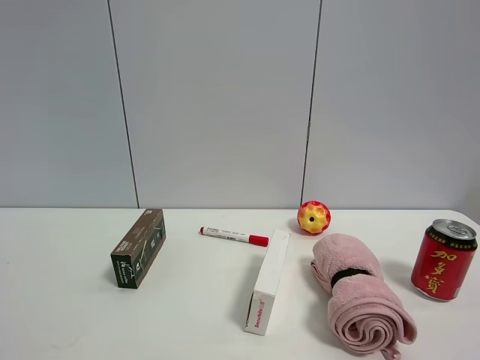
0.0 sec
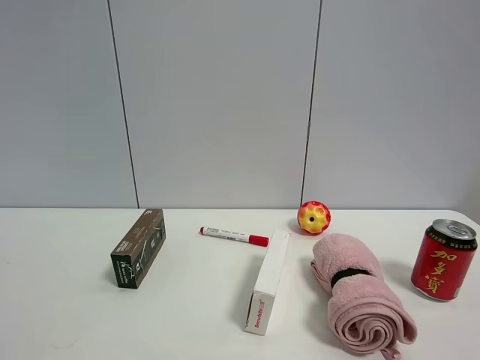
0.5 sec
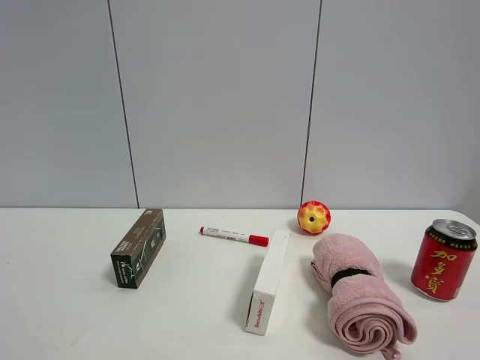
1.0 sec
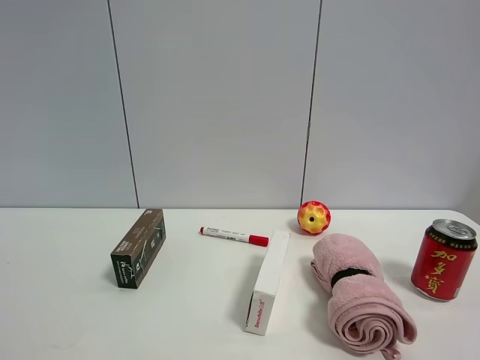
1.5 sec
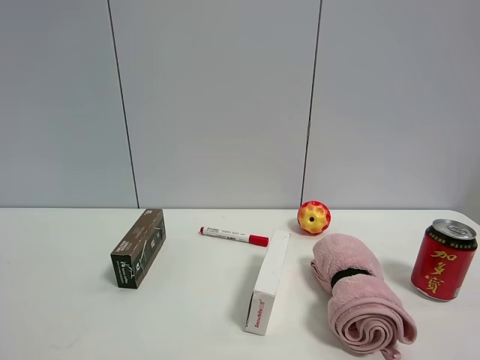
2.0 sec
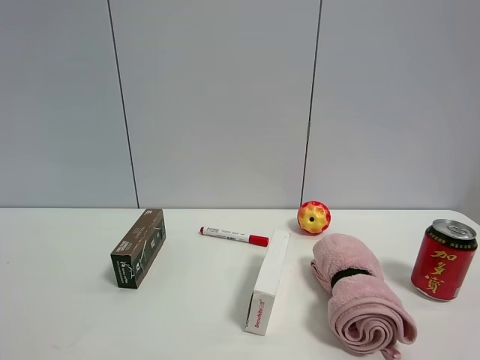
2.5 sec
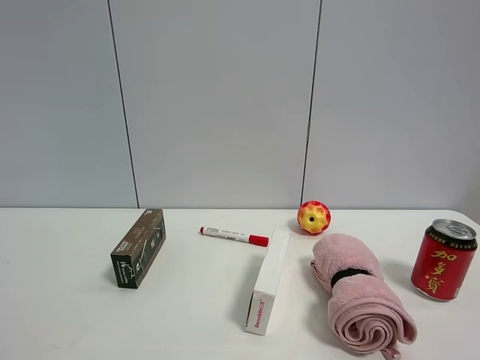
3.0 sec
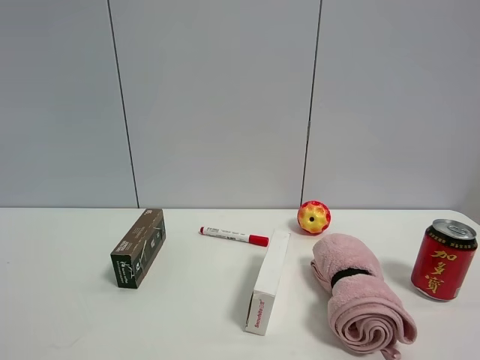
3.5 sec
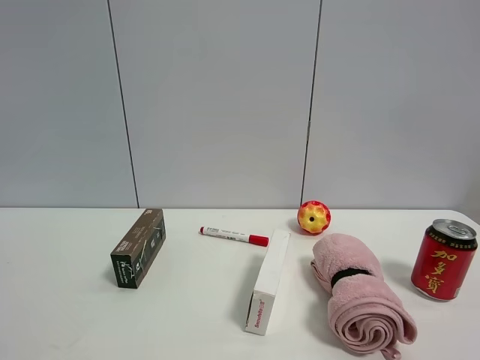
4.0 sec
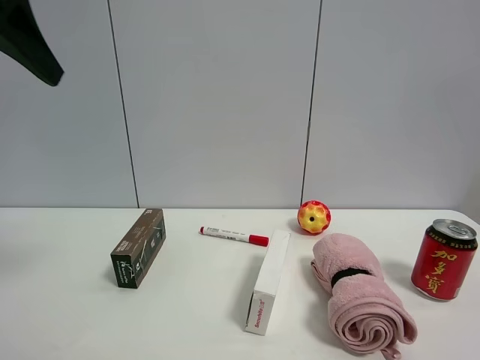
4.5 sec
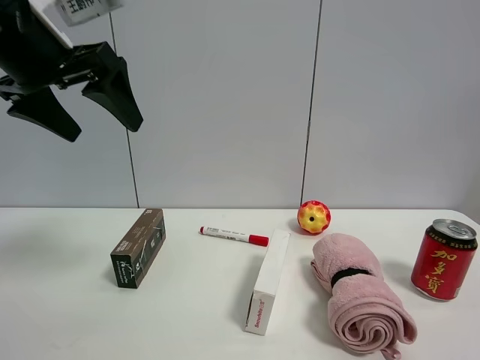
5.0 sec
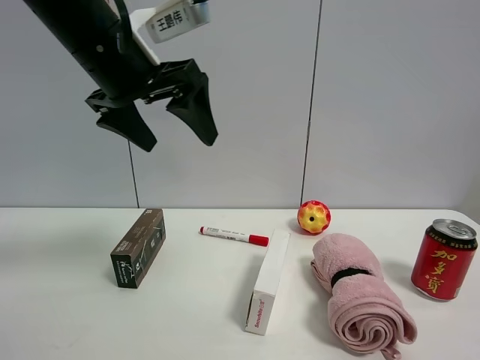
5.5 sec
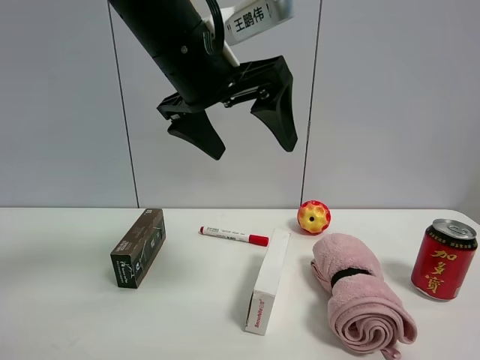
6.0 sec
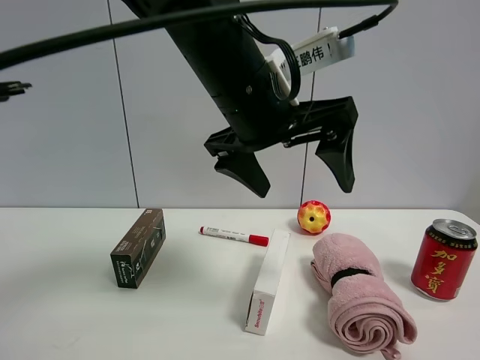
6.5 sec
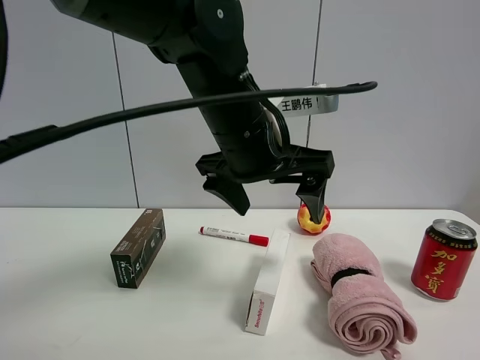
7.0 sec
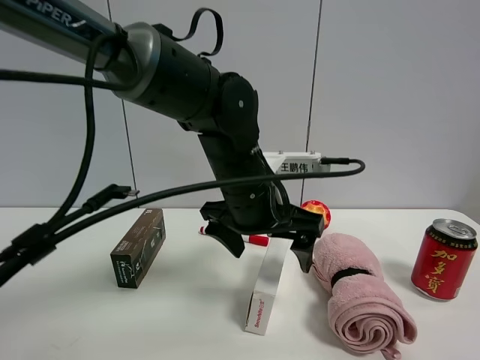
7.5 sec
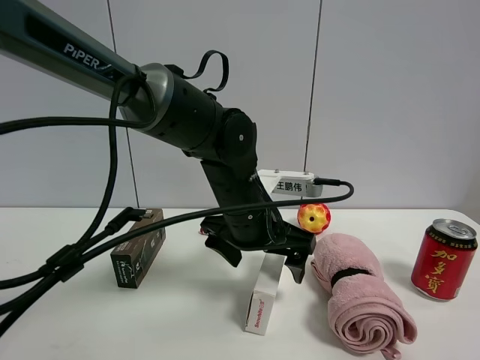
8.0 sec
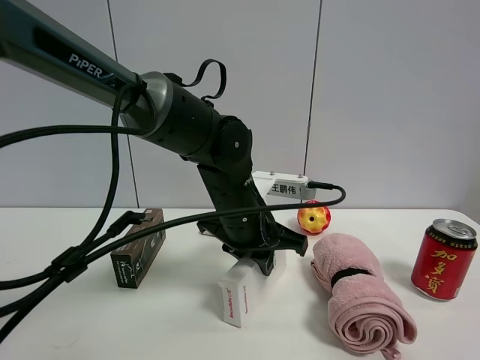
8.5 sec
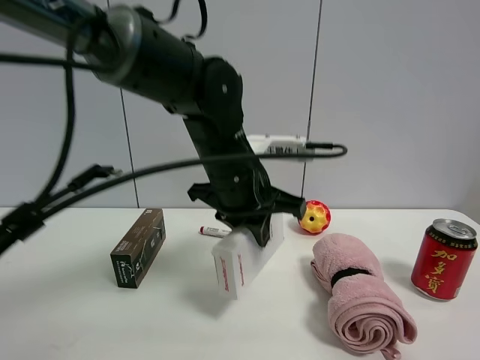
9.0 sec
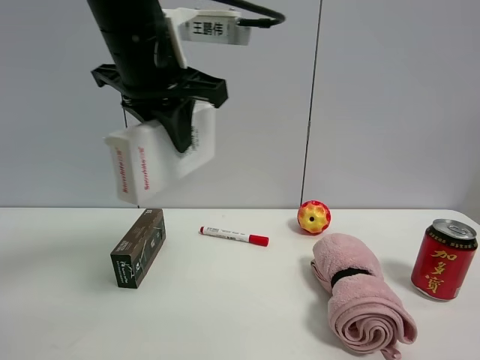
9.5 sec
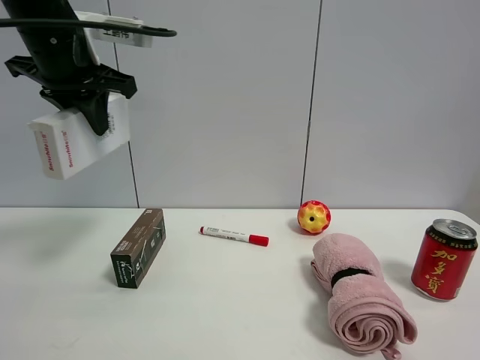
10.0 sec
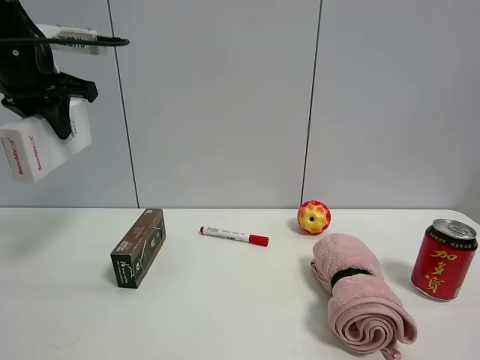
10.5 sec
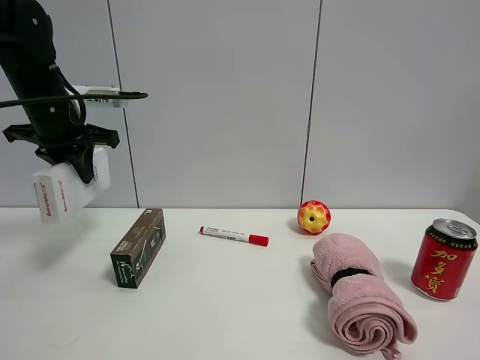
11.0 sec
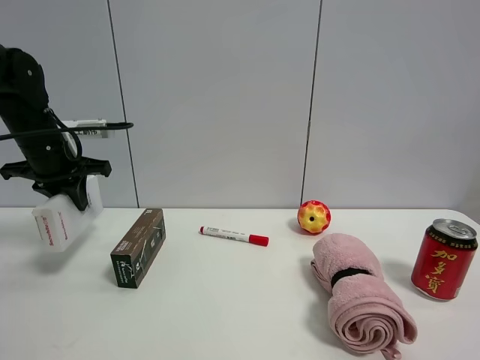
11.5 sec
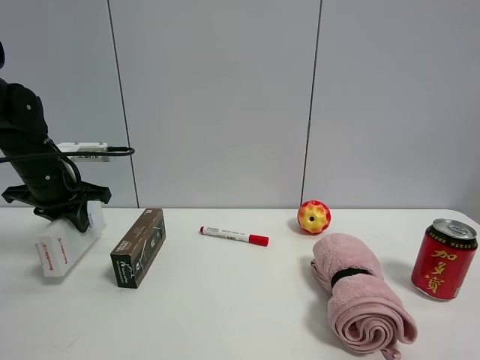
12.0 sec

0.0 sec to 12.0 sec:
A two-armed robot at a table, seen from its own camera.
Task of the whole recording: the gripper move the object.
Step, 0.0 sec to 8.5 sec: Grasp the USB box with the left gripper.
0.0 sec to 2.0 sec: Both grippers stay put.
4.0 sec to 6.0 sec: The left gripper moves to the right and forward, approximately 30 cm.
6.0 sec to 8.0 sec: The left gripper goes approximately 20 cm downward.
8.0 sec to 10.0 sec: The left gripper heads to the left and upward, covering approximately 30 cm, and closes up.
10.0 sec to 12.0 sec: The left gripper is displaced downward and to the left by approximately 20 cm.

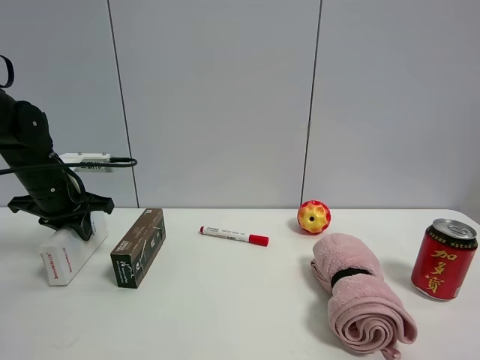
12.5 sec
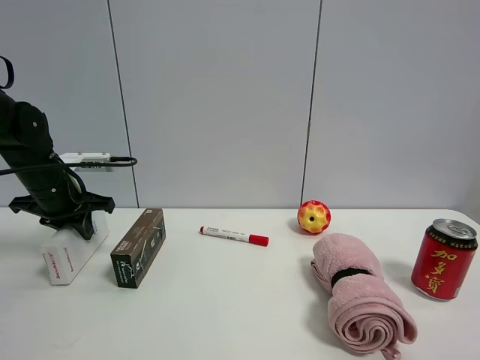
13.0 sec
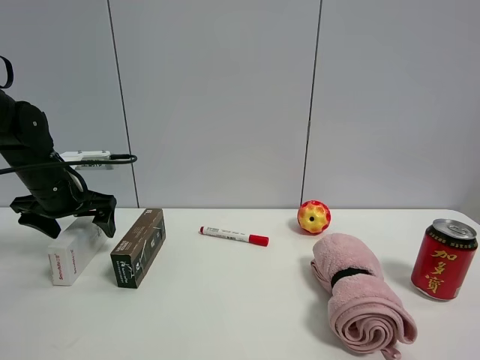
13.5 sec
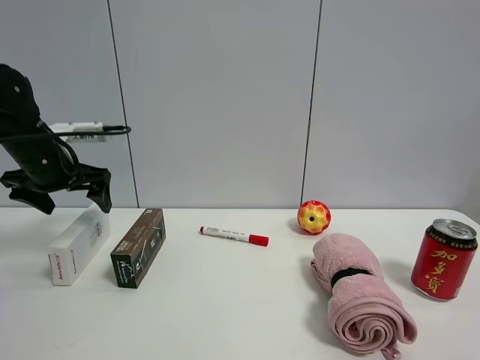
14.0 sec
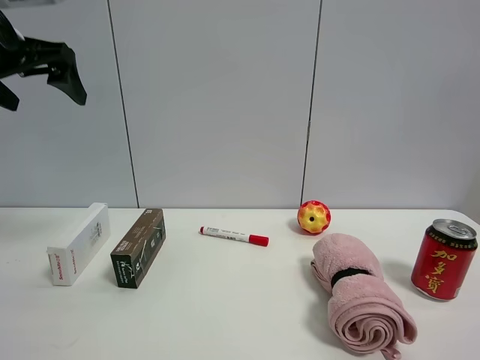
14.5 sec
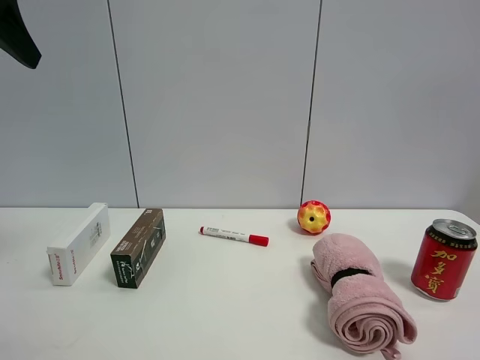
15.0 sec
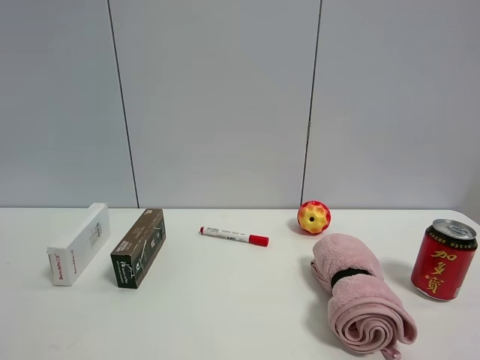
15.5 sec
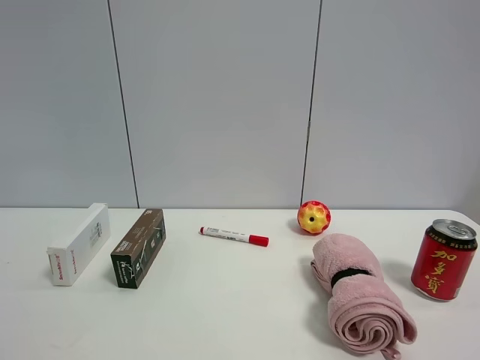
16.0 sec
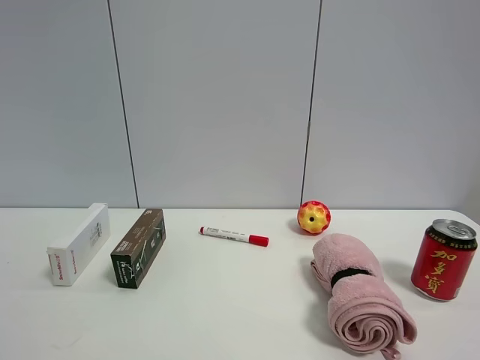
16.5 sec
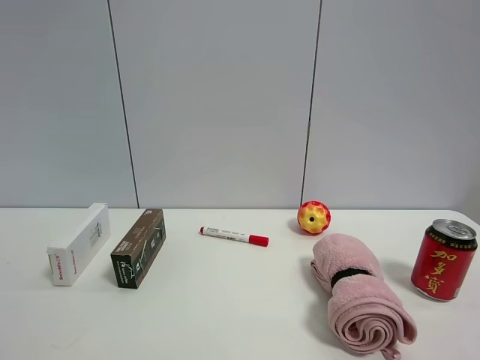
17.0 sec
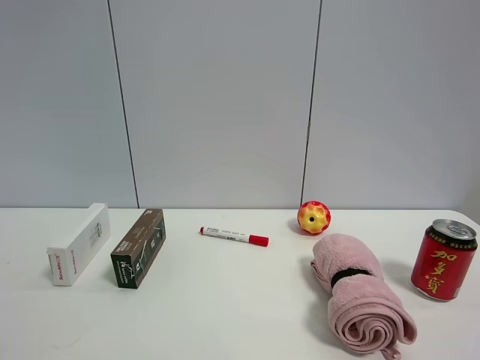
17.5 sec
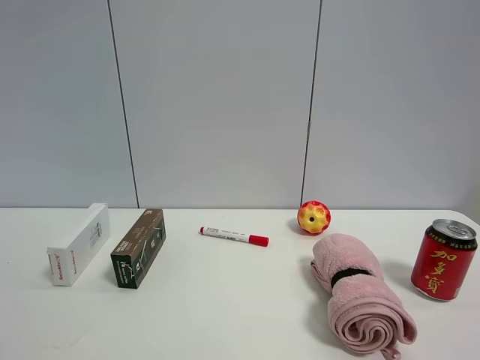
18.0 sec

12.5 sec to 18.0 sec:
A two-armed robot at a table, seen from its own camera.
Task of the whole recording: the gripper move the object.
12.5 sec to 14.5 sec: The left gripper is displaced upward by about 20 cm, and opens up.
14.5 sec to 16.0 sec: The left gripper is displaced backward by approximately 30 cm.

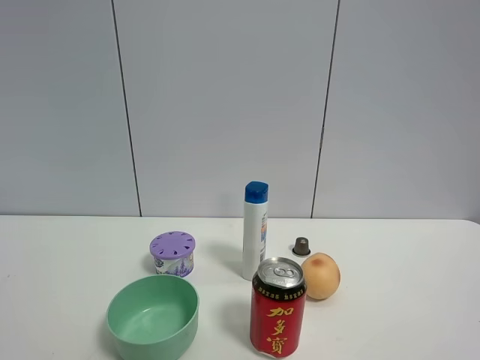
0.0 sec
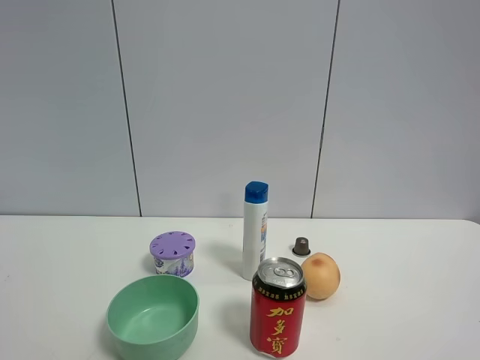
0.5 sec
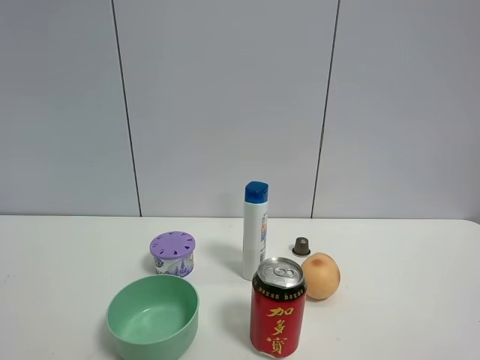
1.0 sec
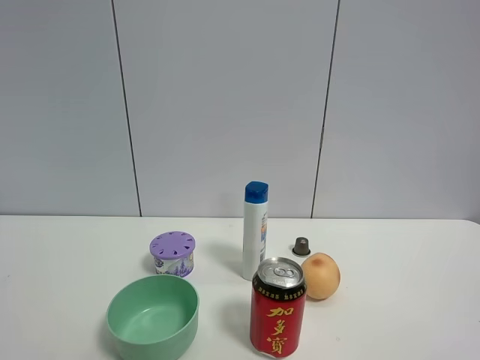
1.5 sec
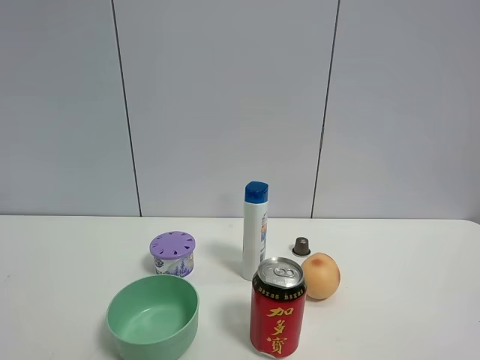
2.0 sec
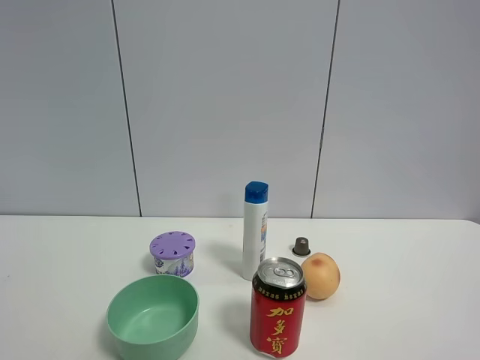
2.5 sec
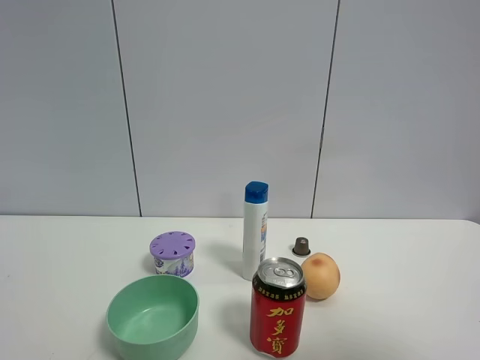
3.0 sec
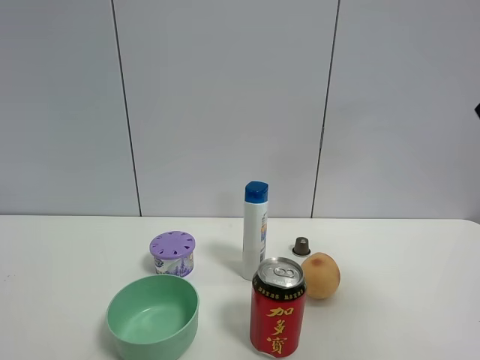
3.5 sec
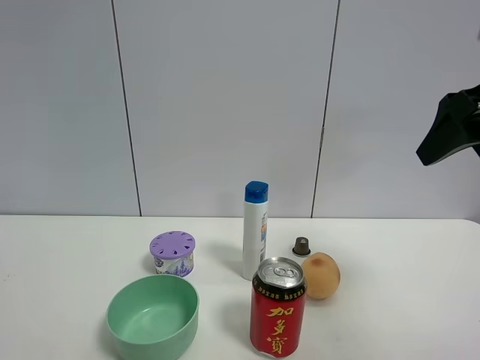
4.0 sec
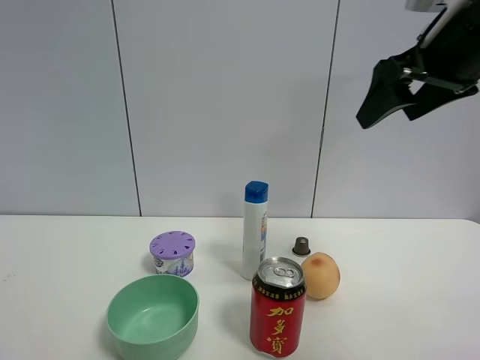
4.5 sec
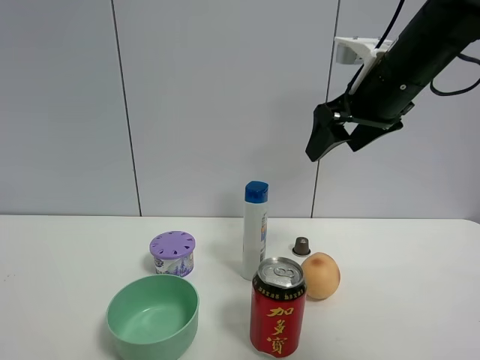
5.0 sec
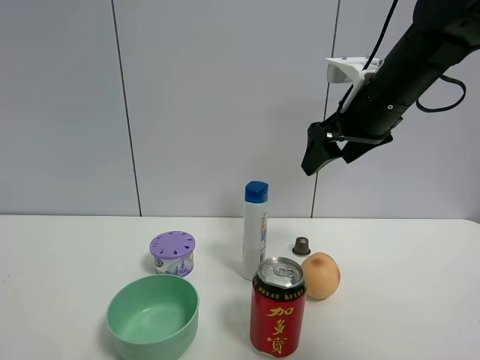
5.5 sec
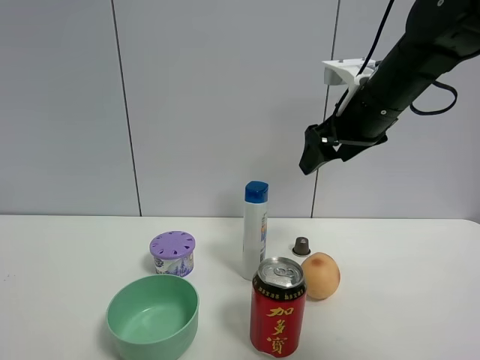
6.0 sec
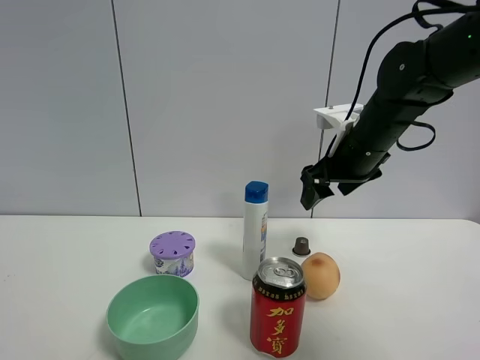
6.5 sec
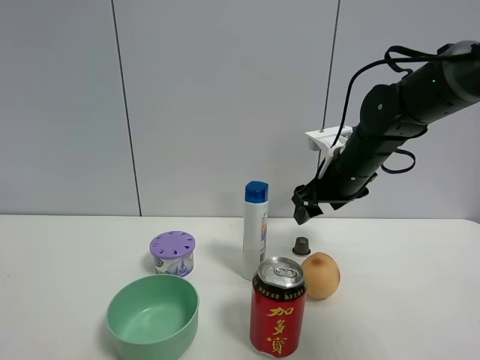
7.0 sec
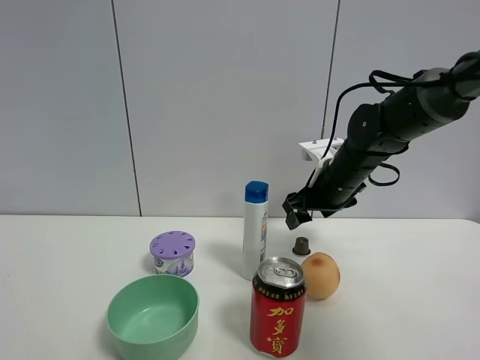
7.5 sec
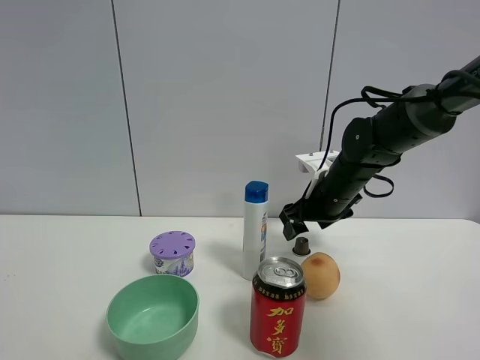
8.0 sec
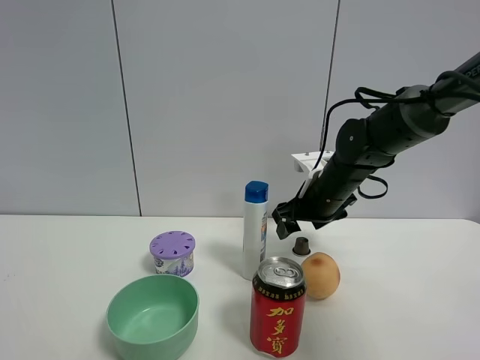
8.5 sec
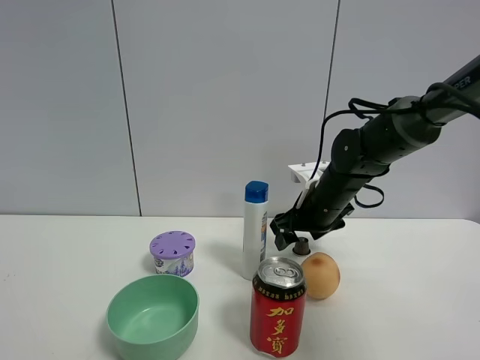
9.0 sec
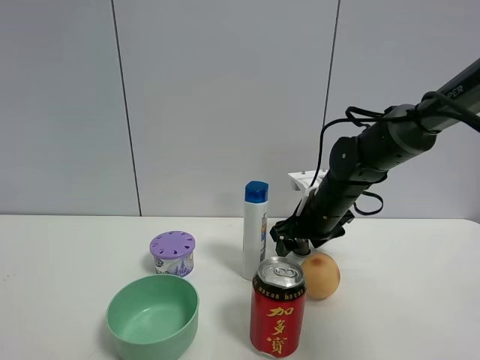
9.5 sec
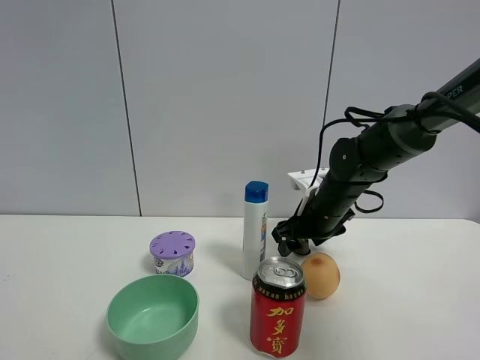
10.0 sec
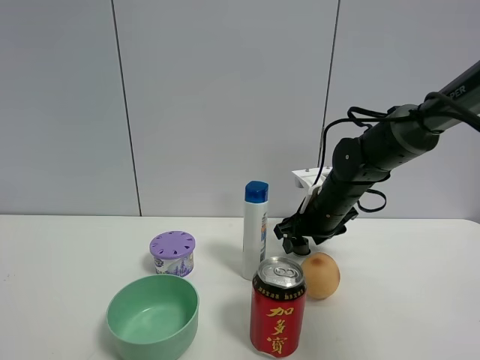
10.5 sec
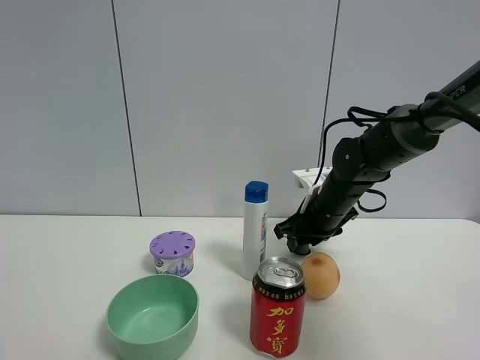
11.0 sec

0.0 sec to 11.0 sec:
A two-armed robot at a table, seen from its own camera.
Task of the whole recording: the gripper move the object.
0.0 sec to 2.0 sec: The two grippers keep their place.
2.0 sec to 3.5 sec: The right gripper heads forward, covering roughly 20 cm.
3.5 sec to 5.5 sec: The right gripper heads forward, to the left and downward, covering approximately 20 cm.
5.5 sec to 7.5 sec: The right gripper travels downward and forward by some 15 cm.
7.5 sec to 9.0 sec: The grippers make only small movements.
9.0 sec to 11.0 sec: The right gripper closes.
